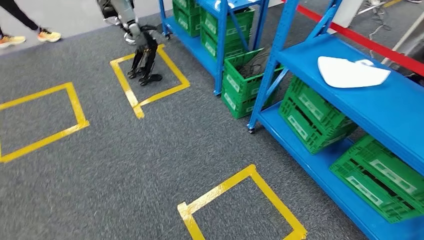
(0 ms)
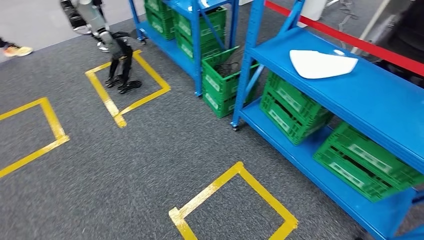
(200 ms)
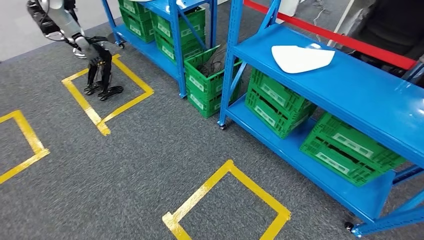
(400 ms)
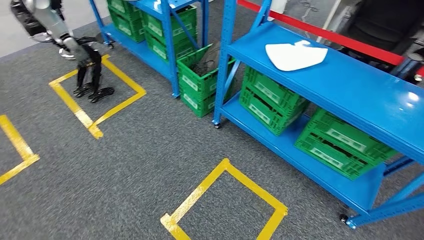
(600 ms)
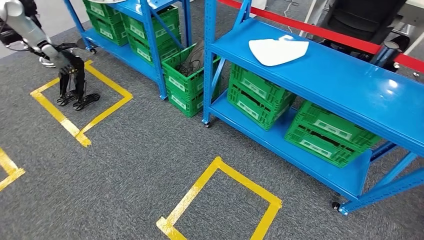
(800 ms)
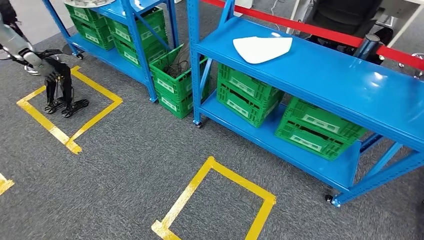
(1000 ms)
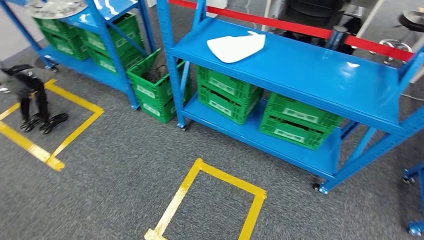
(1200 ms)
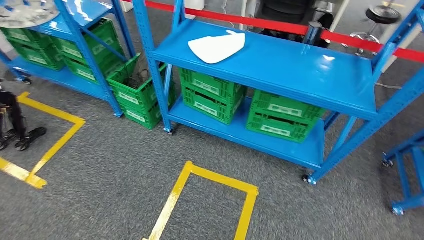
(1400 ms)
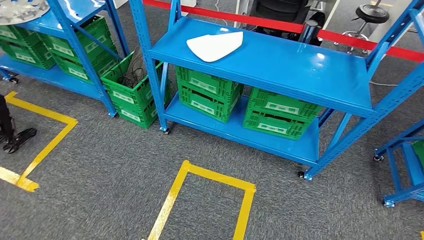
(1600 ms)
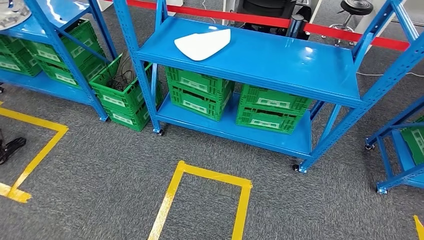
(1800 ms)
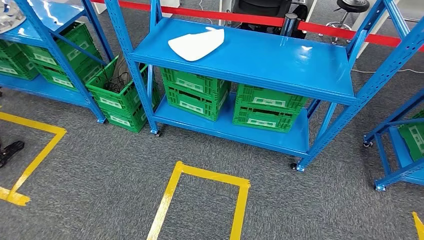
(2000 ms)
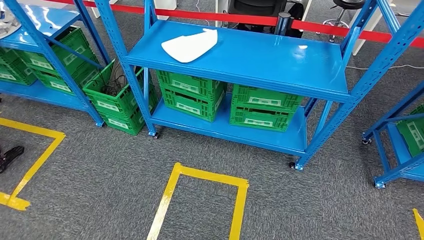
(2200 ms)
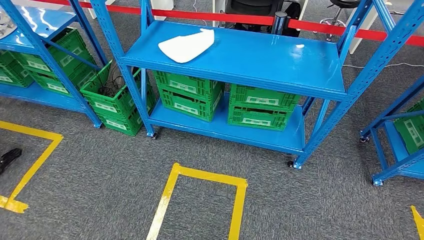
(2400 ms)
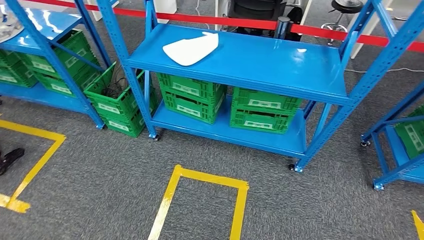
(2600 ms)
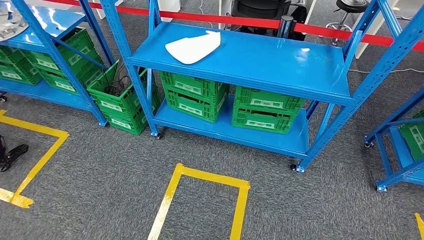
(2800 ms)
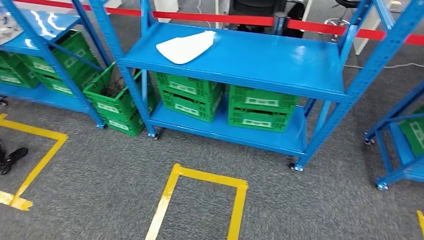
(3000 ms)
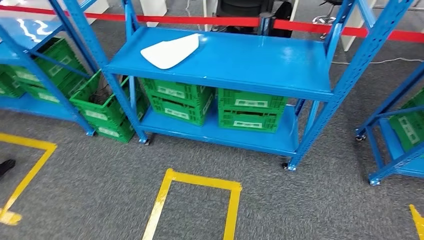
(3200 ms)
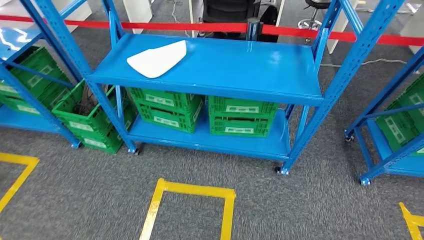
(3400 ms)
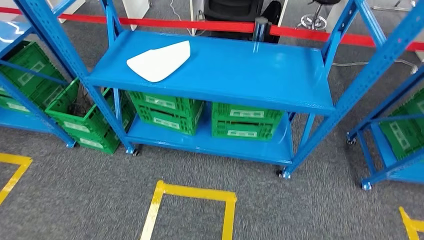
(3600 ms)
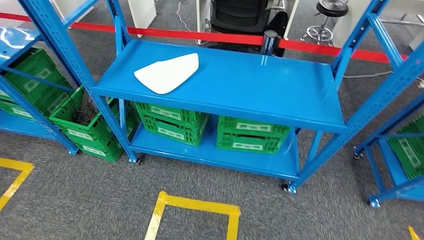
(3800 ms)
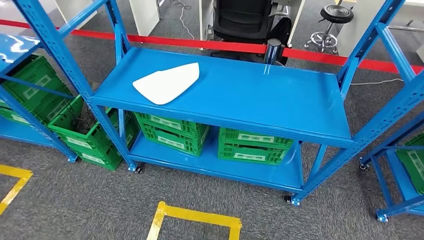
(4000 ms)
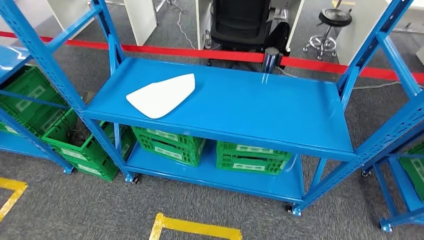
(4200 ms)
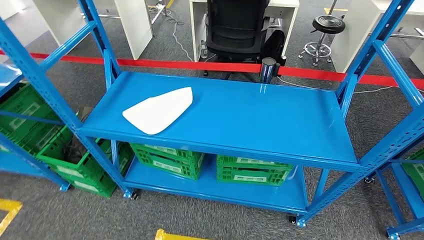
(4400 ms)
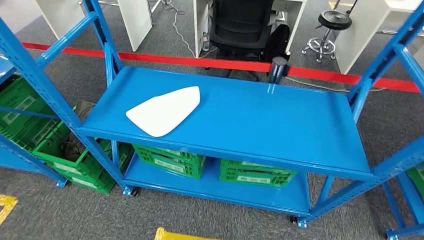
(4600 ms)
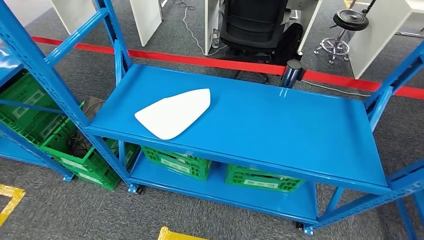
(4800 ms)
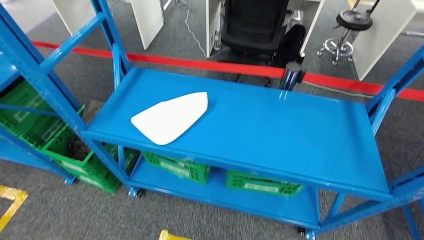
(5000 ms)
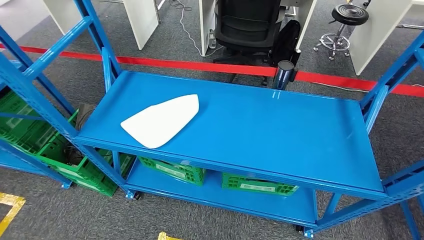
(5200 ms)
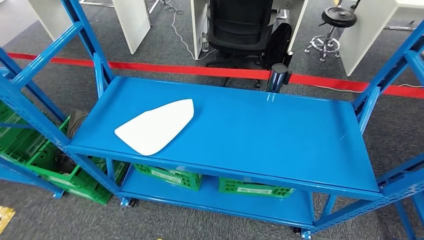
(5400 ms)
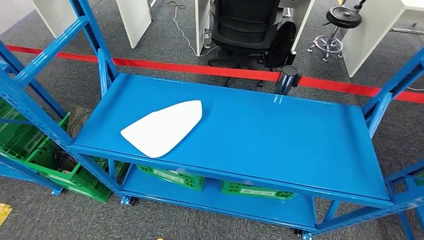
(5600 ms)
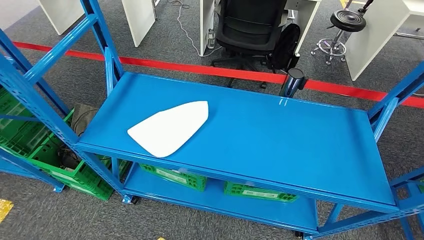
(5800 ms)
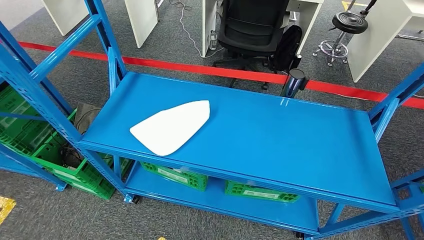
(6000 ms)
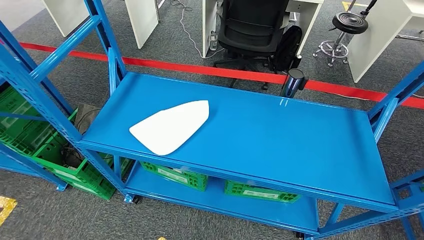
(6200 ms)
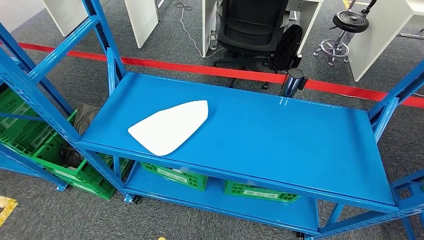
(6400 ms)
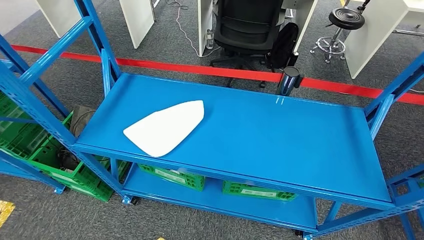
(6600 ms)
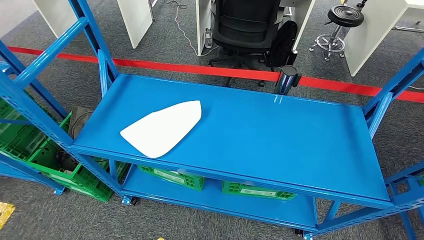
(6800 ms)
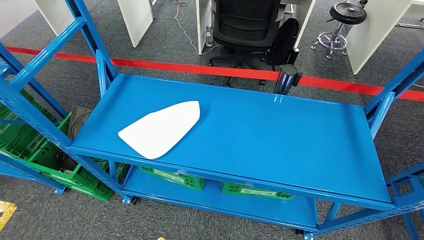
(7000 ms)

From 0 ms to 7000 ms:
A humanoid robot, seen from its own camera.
Step, from 0 ms to 7000 ms: Move to the initial position of the workbench.
From 5600 ms to 7000 ms: The hands make only small movements.

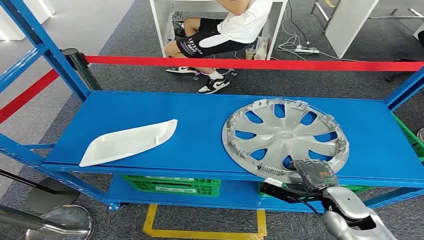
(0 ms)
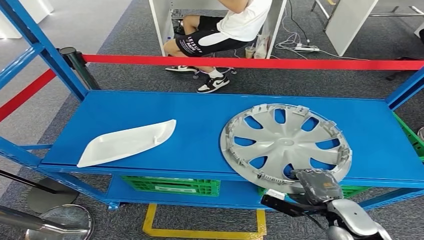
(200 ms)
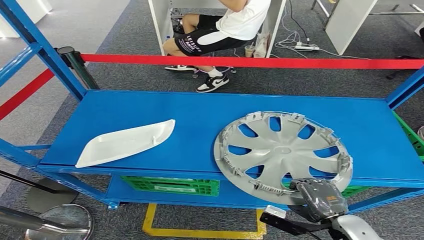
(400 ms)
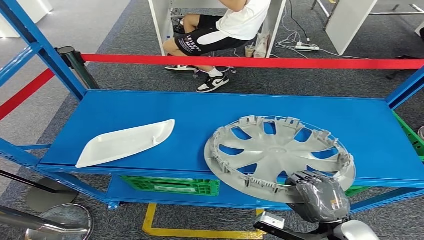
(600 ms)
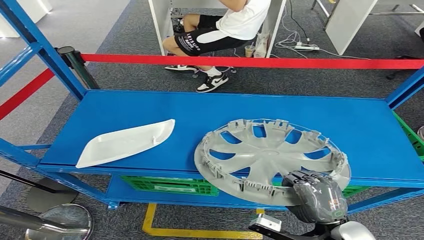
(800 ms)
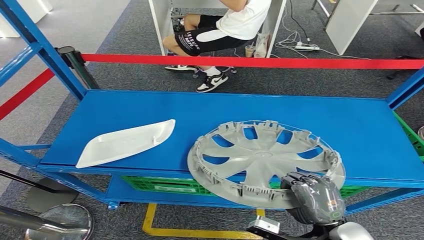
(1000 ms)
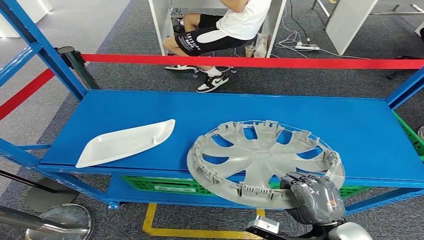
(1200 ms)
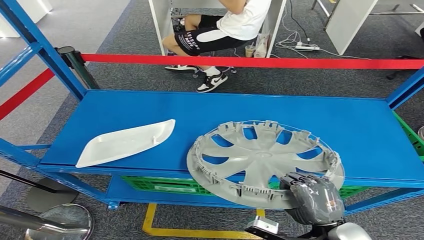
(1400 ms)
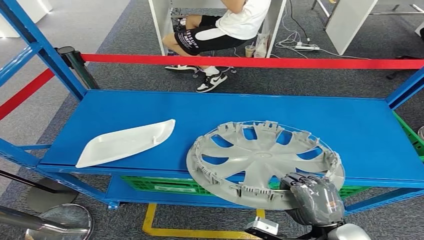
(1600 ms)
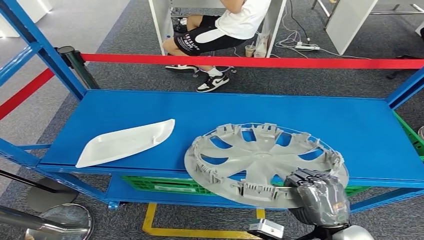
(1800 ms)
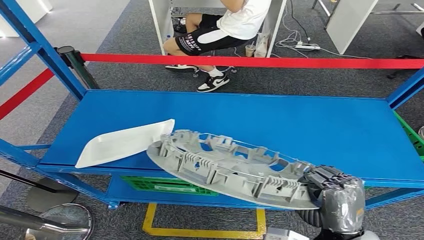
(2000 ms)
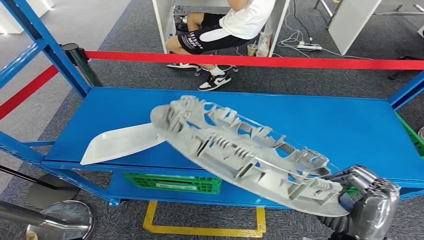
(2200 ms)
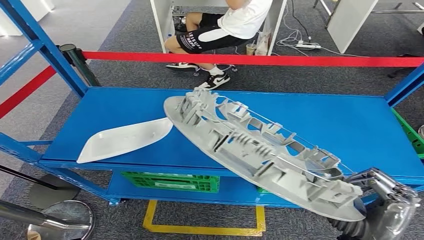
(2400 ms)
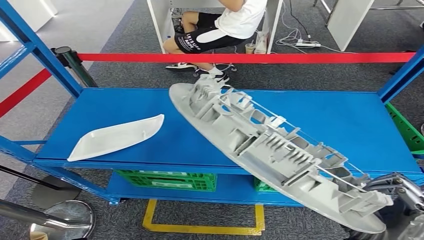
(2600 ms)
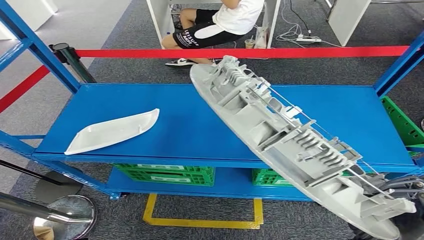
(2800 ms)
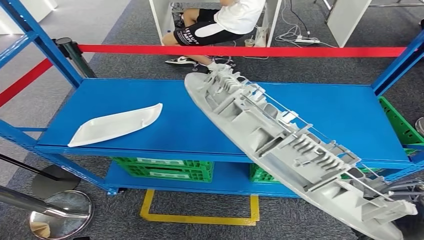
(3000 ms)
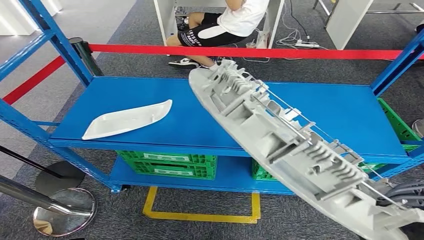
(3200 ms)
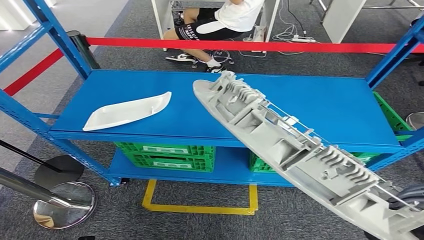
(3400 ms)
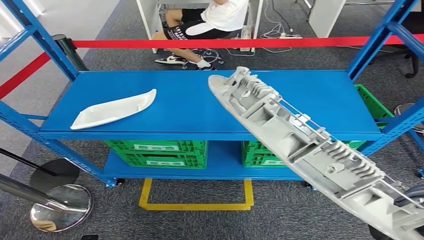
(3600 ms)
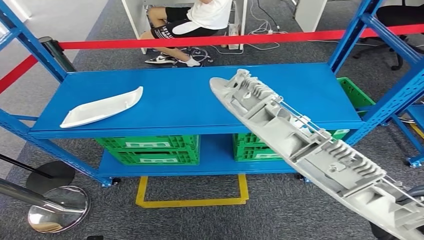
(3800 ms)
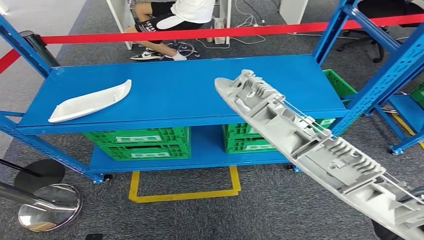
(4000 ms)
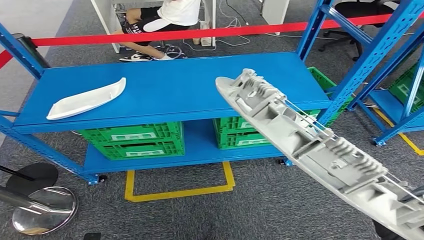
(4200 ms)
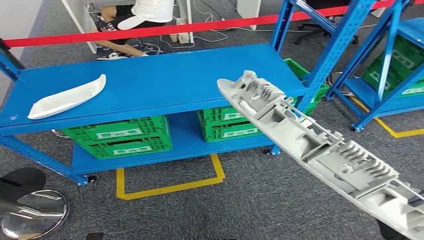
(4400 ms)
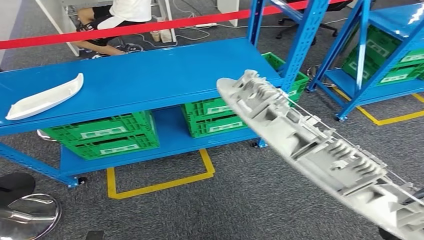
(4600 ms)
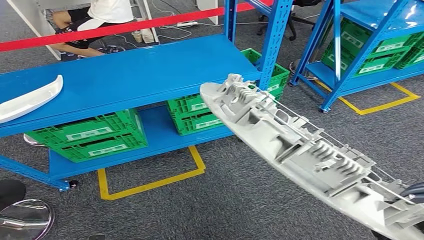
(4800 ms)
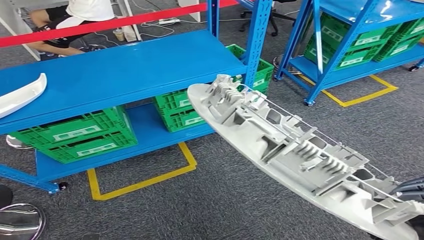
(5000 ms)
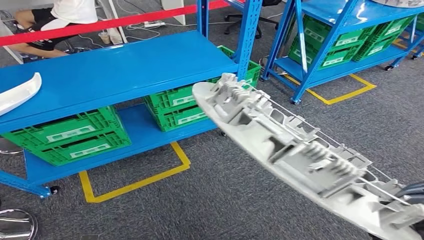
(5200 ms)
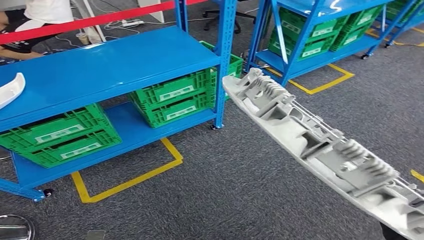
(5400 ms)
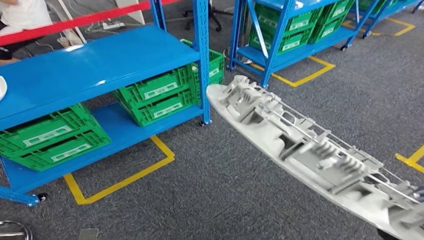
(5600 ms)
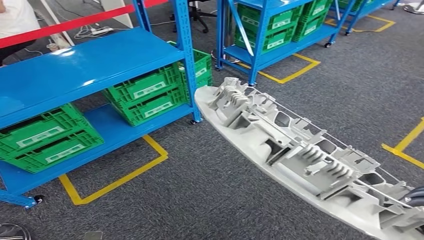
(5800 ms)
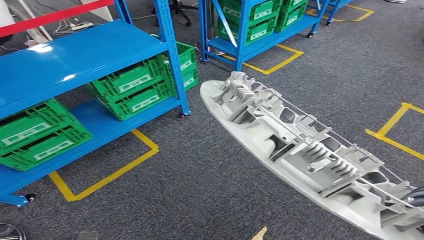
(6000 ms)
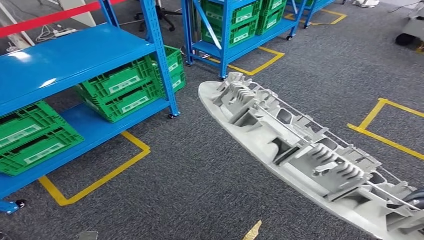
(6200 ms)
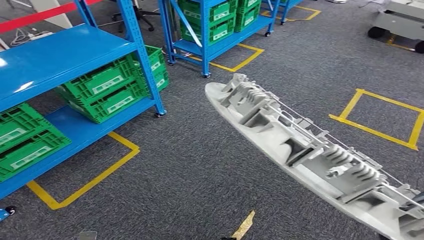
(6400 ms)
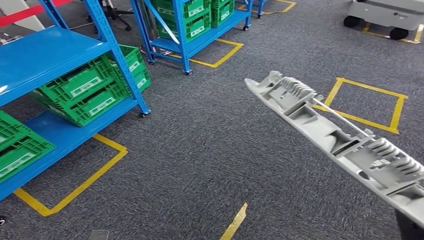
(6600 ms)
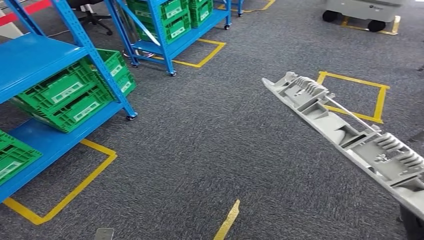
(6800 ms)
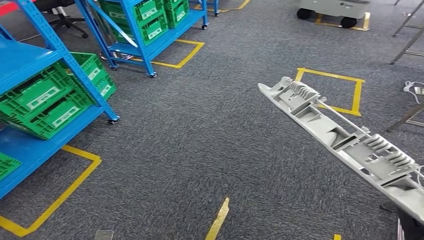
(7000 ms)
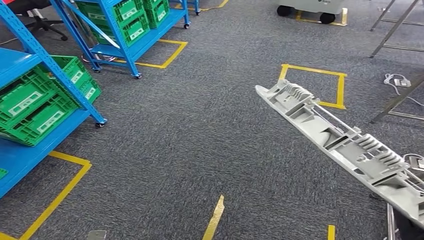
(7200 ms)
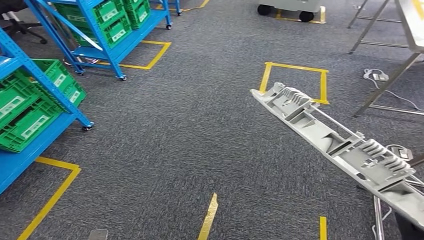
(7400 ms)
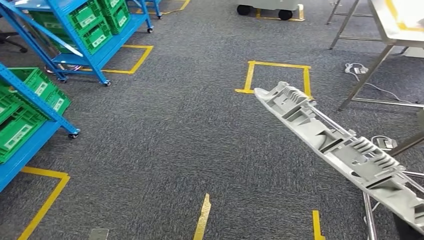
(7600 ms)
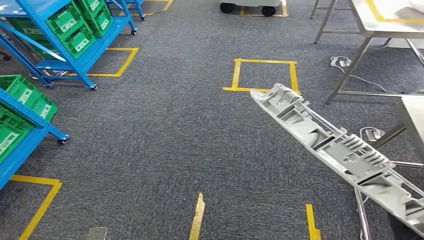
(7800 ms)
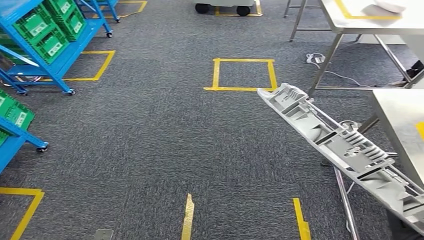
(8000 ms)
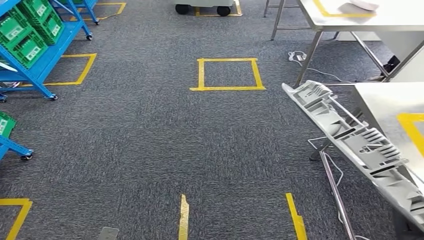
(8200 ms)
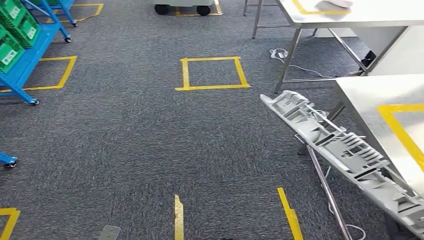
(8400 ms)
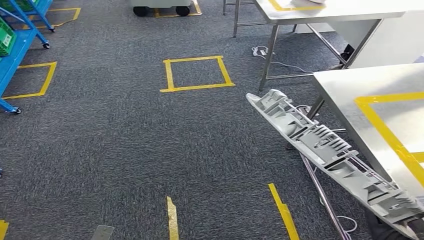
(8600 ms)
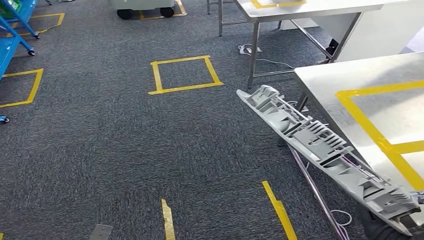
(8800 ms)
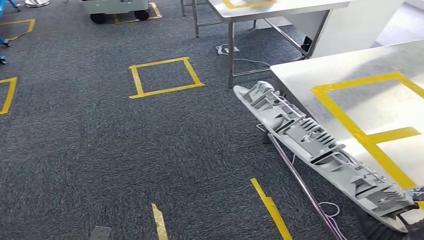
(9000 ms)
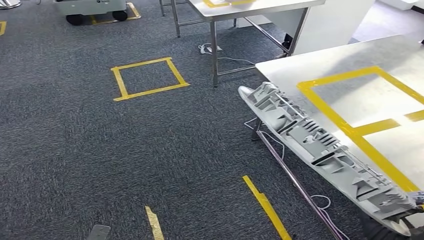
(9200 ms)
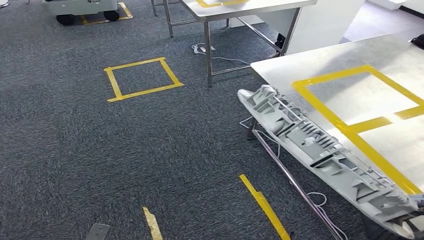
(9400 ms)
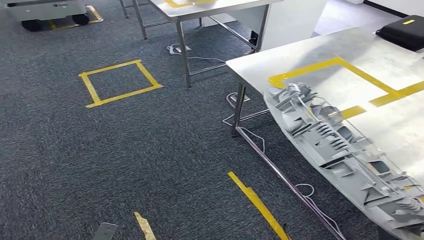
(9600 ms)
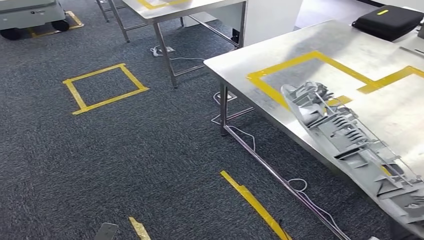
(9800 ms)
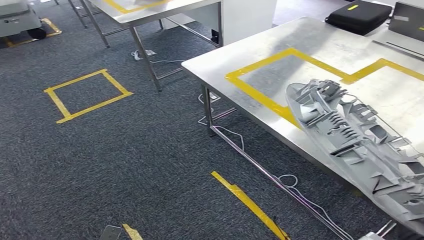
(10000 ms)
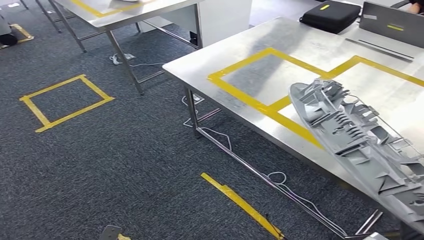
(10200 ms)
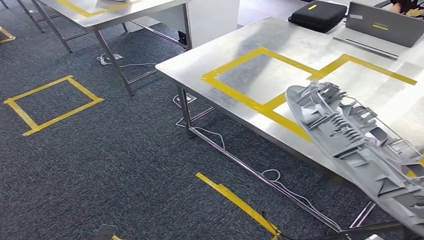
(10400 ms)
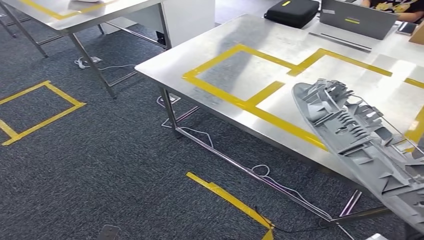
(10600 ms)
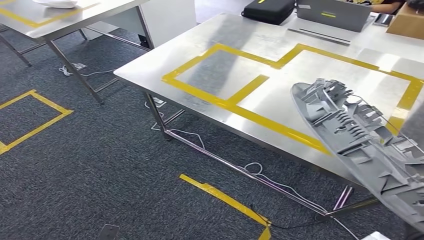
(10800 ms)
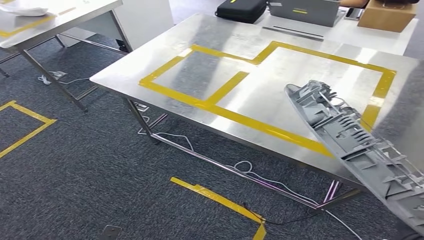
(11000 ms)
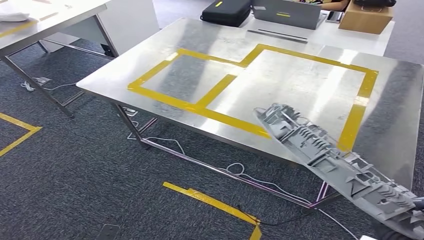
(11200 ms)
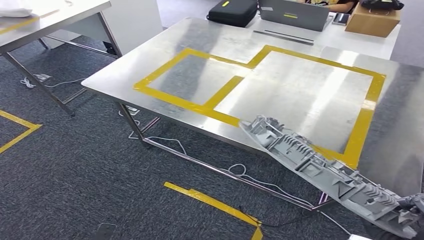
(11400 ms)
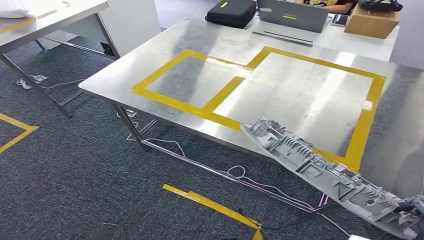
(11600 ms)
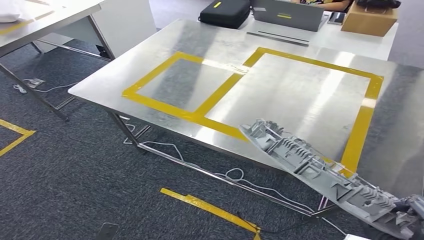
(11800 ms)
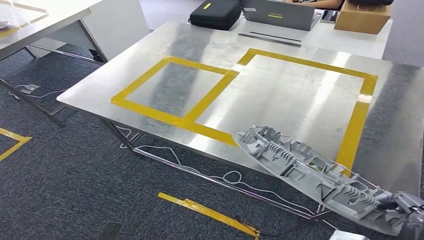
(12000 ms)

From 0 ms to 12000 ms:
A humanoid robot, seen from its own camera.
Step, from 0 ms to 5000 ms: Take small components from the rack.
Step, from 5200 ms to 11800 ms: Move the small parts to the workbench.
